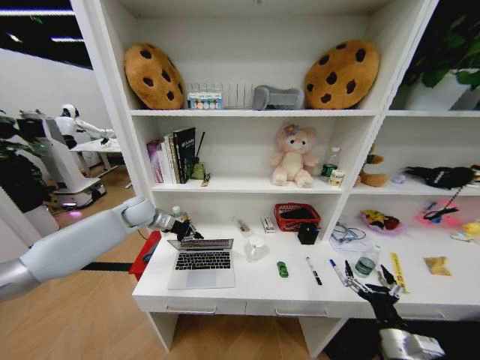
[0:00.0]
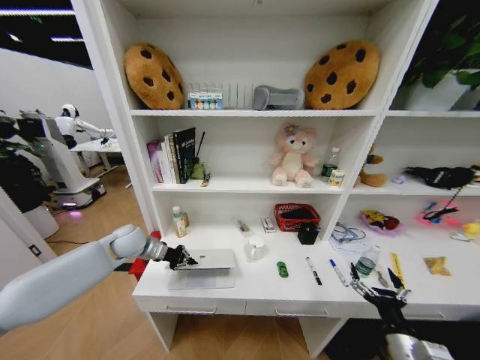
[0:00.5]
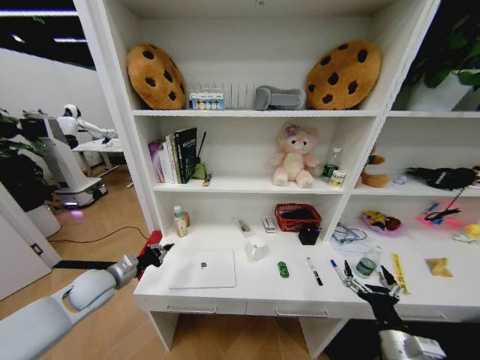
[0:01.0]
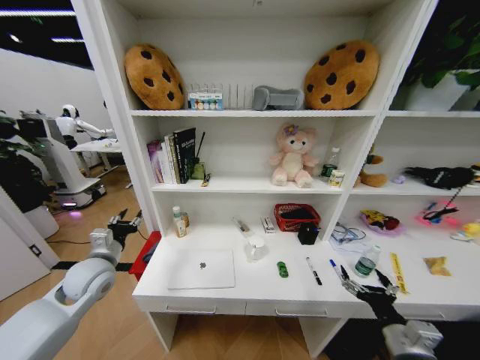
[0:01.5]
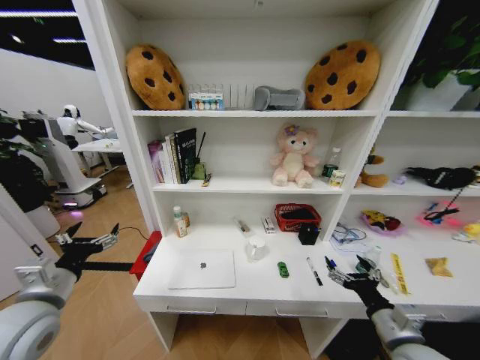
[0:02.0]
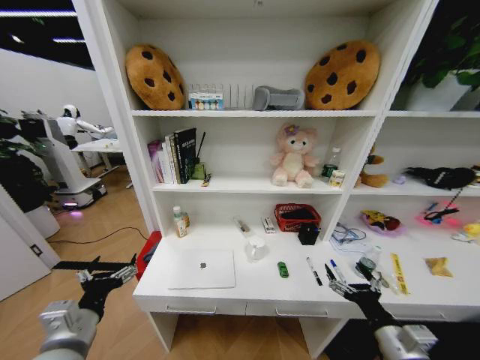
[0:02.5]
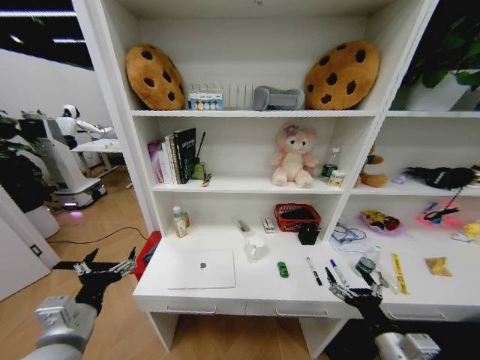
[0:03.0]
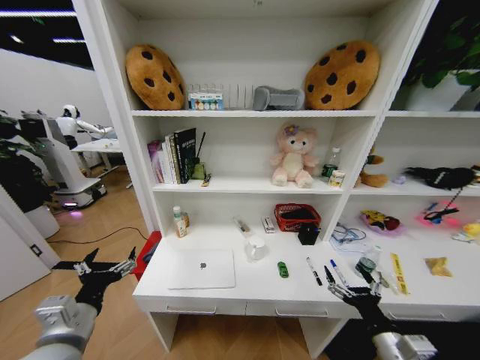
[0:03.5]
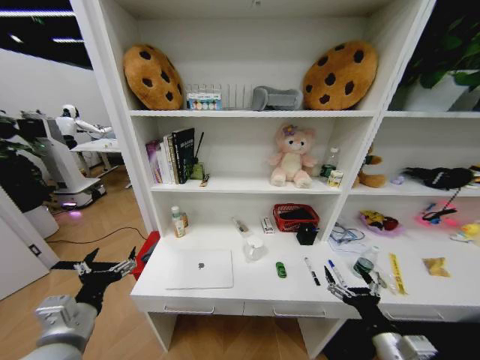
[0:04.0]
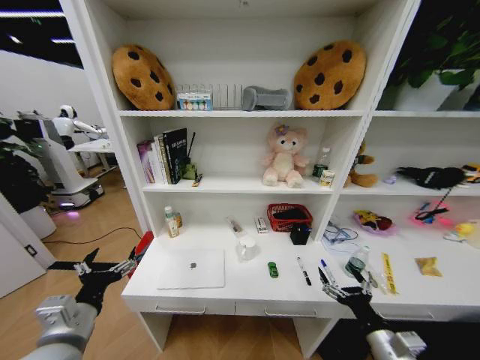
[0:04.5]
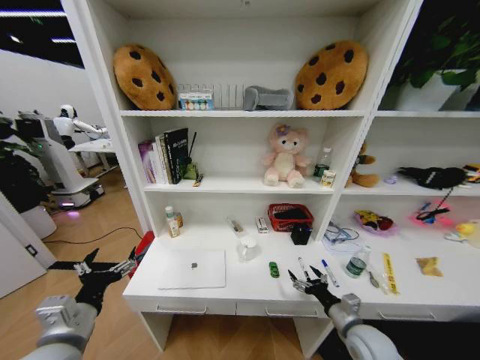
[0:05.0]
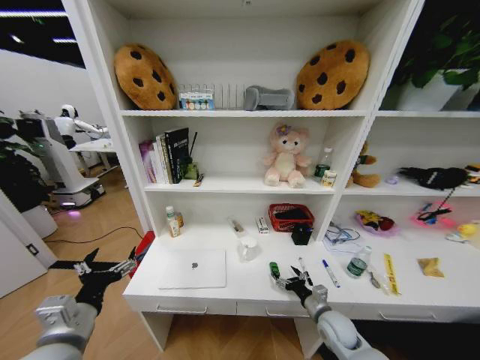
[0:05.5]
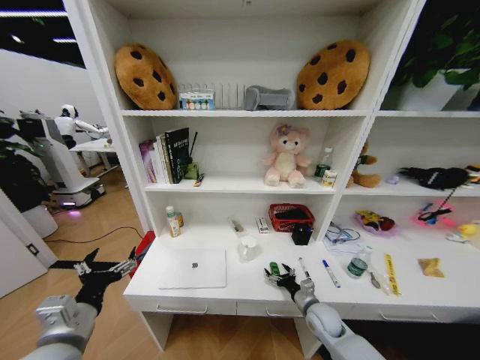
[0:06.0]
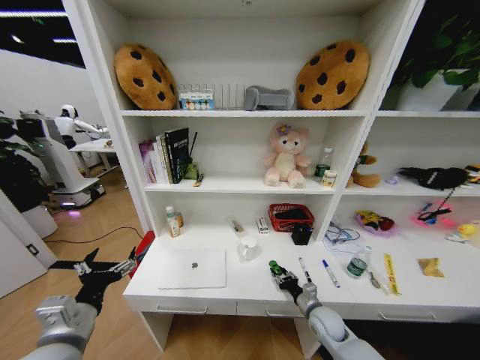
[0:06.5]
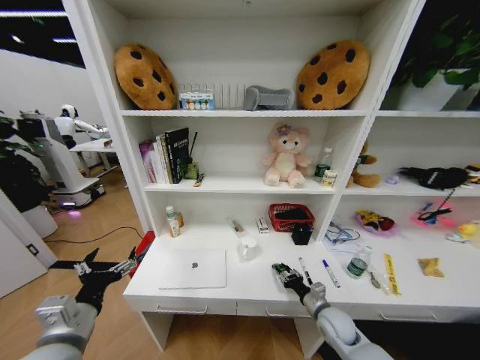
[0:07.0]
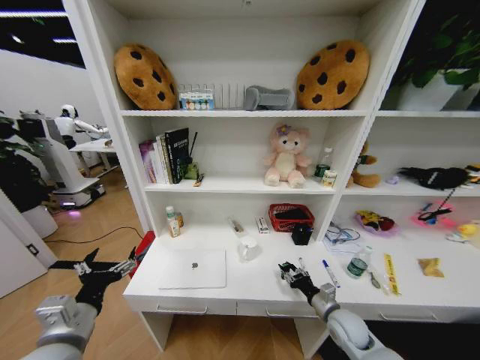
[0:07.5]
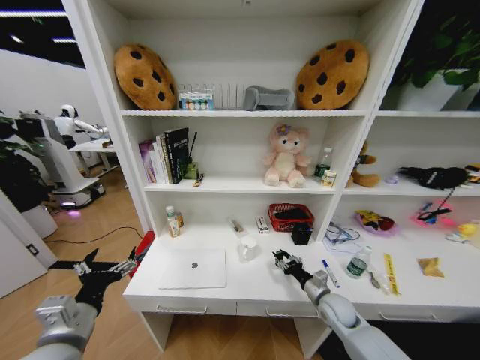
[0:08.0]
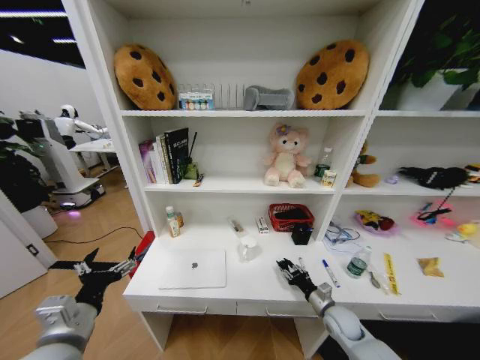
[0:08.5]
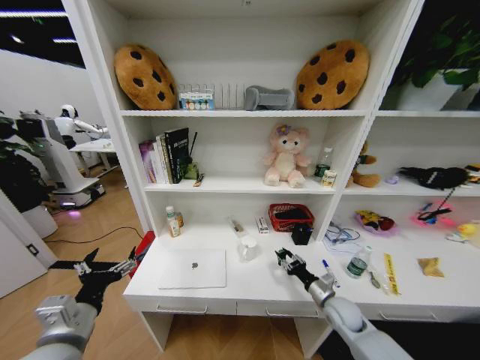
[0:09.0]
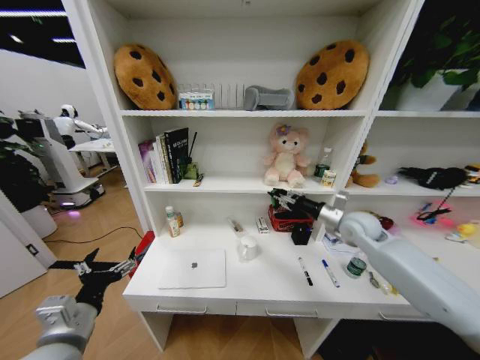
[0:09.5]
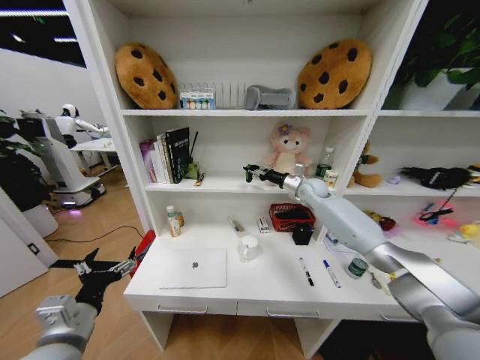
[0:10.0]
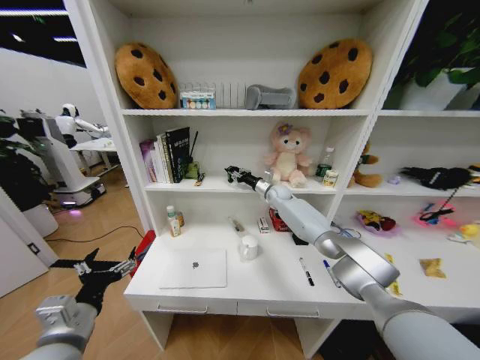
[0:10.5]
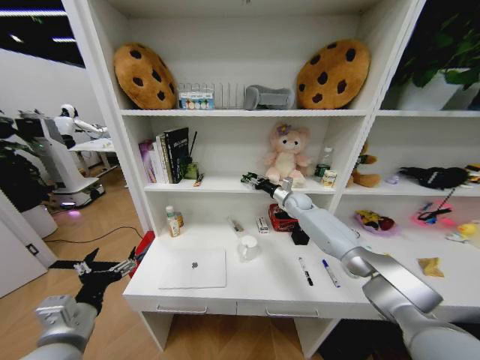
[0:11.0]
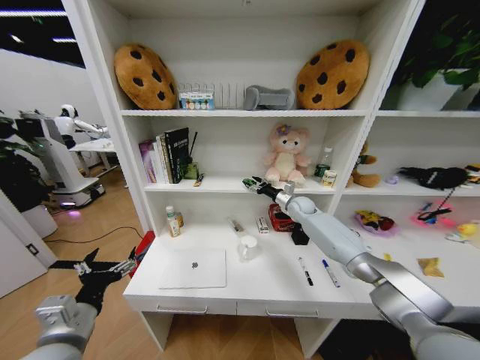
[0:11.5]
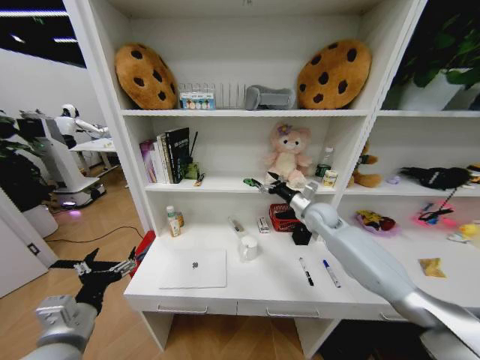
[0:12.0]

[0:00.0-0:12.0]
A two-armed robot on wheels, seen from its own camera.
Task of the whole recording: Organize the objects on the table.
0:00.0 to 0:02.0: The left gripper shifts some 30 cm backward, and opens; the right gripper goes some 5 cm upward.
0:02.0 to 0:04.0: The left gripper travels to the right and backward by about 10 cm. Meanwhile the right gripper shifts by roughly 5 cm.
0:04.0 to 0:06.0: The right gripper is displaced forward and downward by about 20 cm.
0:06.0 to 0:08.0: The right gripper changes place by approximately 5 cm, and closes.
0:08.0 to 0:10.0: The right gripper moves forward and upward, approximately 40 cm.
0:10.0 to 0:12.0: The right gripper goes some 10 cm backward, and opens its fingers.

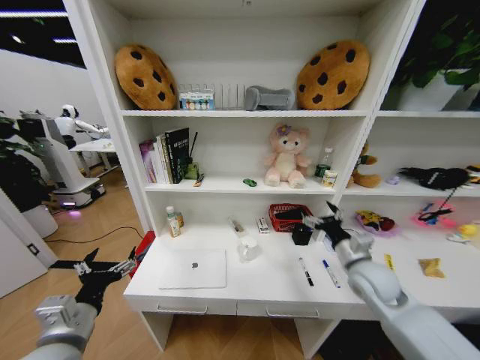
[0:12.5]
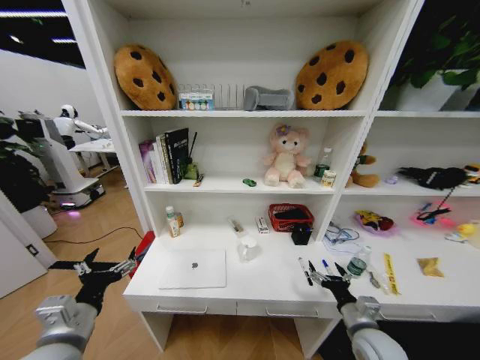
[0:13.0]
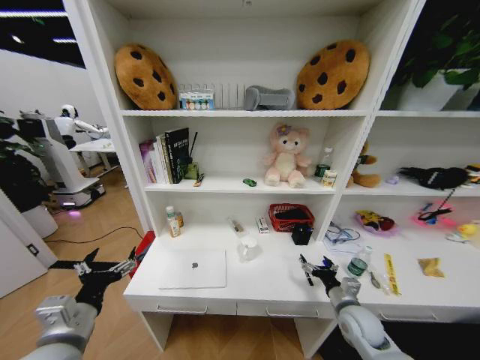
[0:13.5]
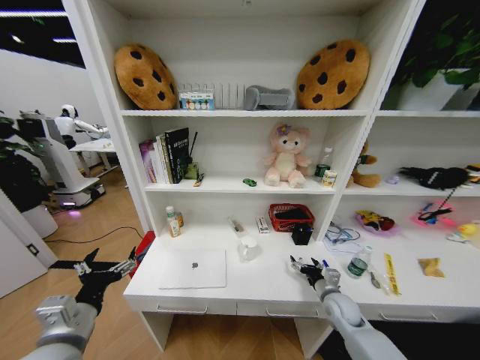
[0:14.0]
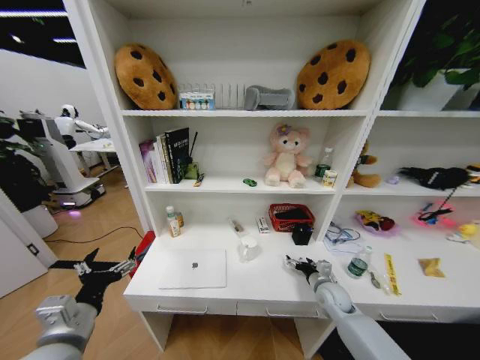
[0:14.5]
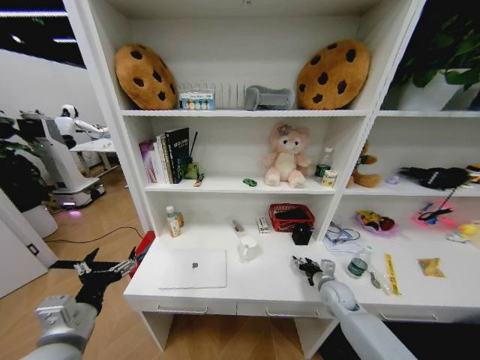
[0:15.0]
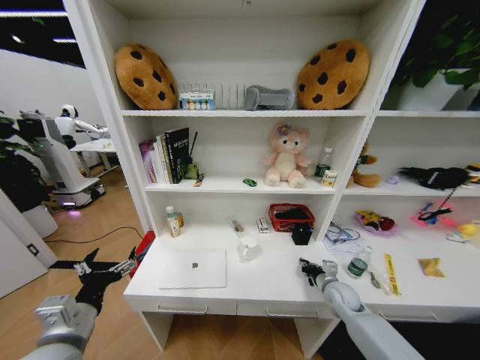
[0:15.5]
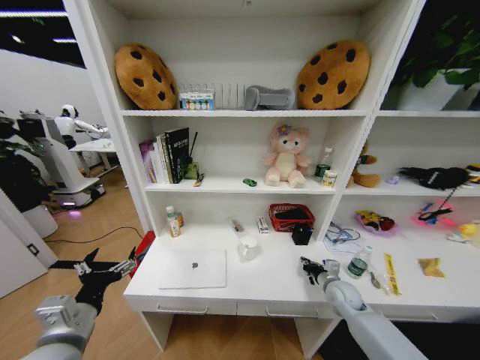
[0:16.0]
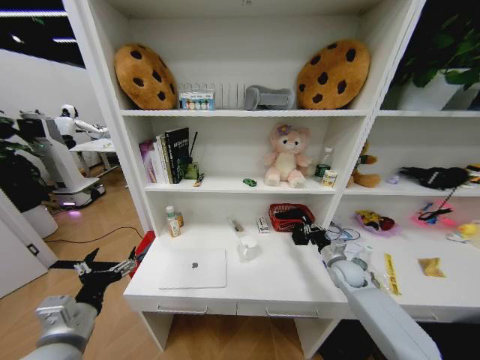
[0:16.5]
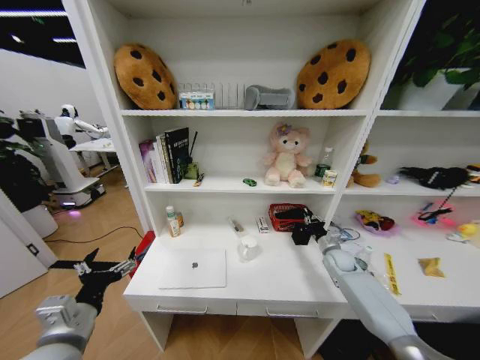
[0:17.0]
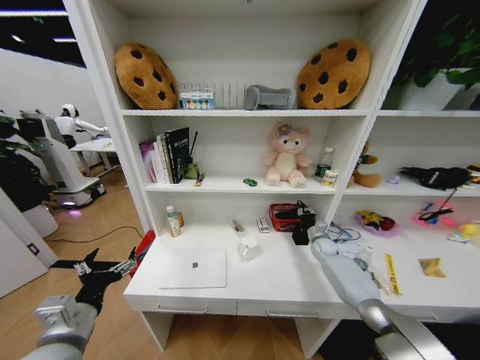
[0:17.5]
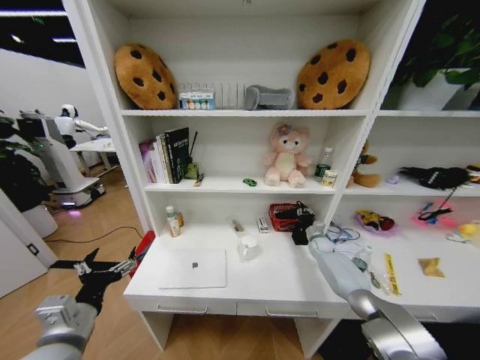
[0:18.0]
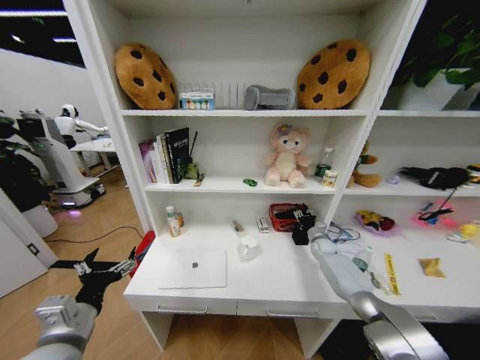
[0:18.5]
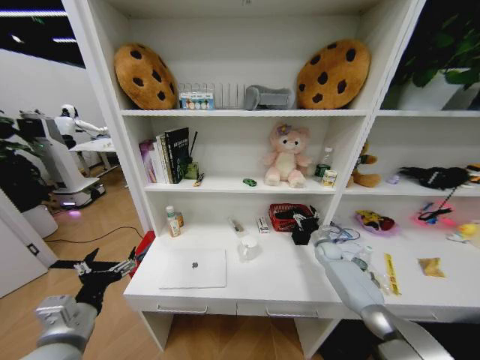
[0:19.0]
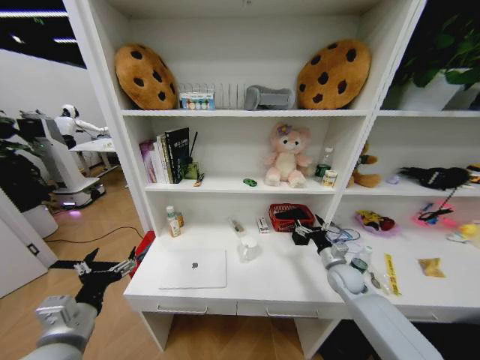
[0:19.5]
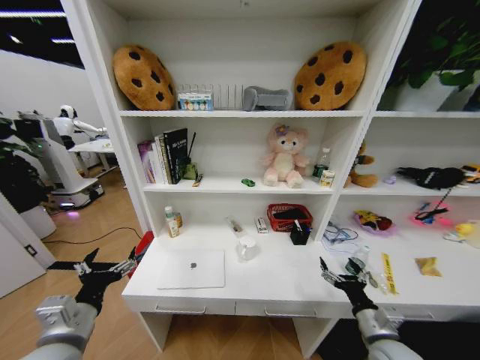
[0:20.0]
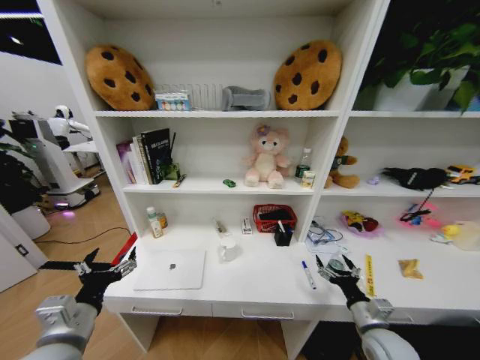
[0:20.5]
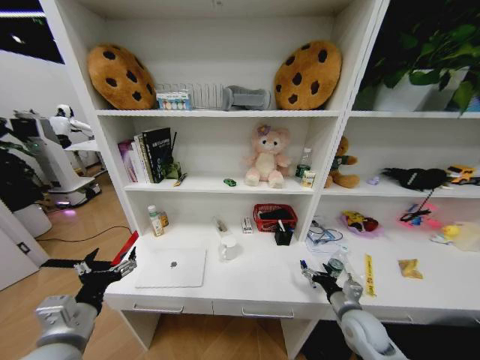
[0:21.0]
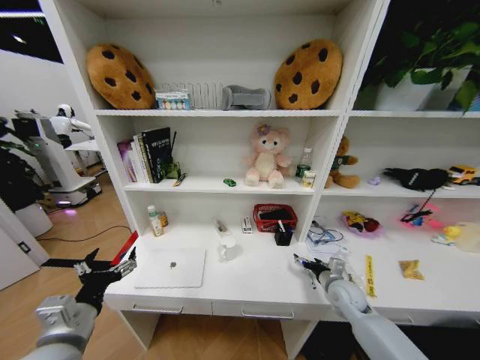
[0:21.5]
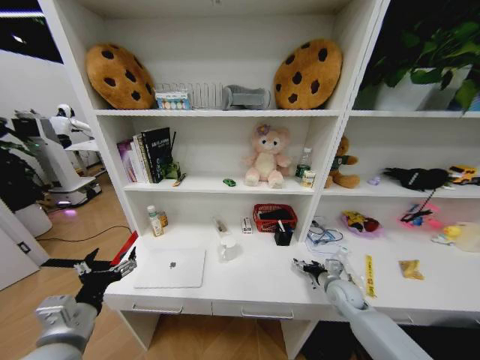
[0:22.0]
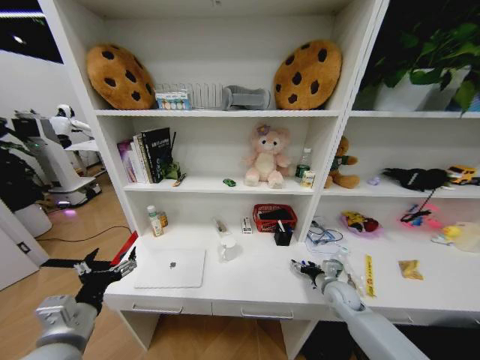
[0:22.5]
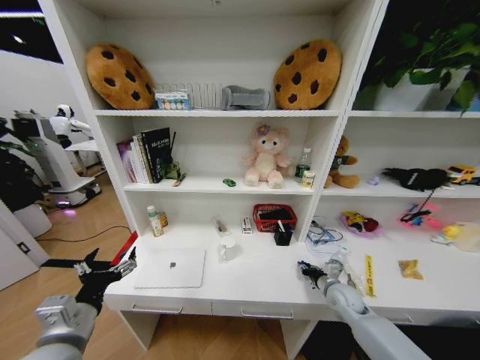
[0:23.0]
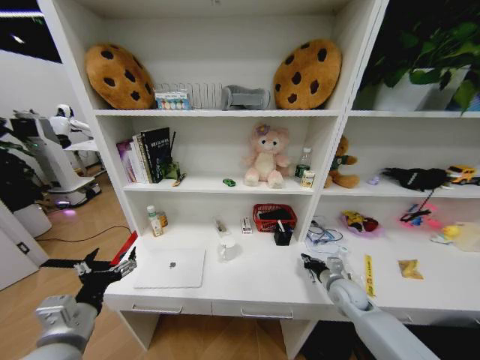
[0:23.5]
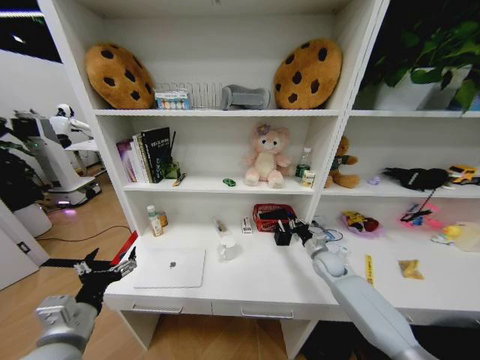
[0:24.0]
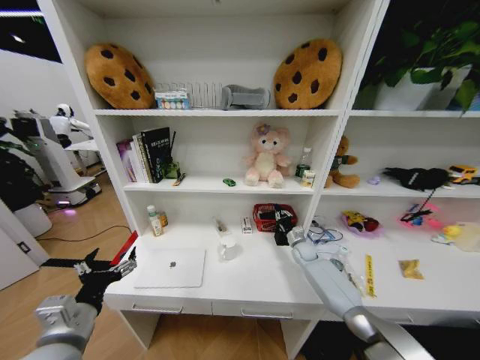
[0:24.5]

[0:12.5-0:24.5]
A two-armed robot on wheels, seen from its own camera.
Task of the whole recording: Organize the objects on the table.
0:12.5 to 0:14.5: The right gripper is displaced downward by roughly 15 cm.
0:14.5 to 0:16.5: The right gripper heads to the right and forward, covering roughly 10 cm, and closes up.
0:16.5 to 0:18.5: The right gripper moves forward, roughly 15 cm.
0:18.5 to 0:20.5: The right gripper moves backward, some 35 cm, and opens.
0:20.5 to 0:22.5: The right gripper heads forward, covering about 15 cm.
0:22.5 to 0:24.5: The right gripper heads forward, covering roughly 15 cm, and closes its fingers.

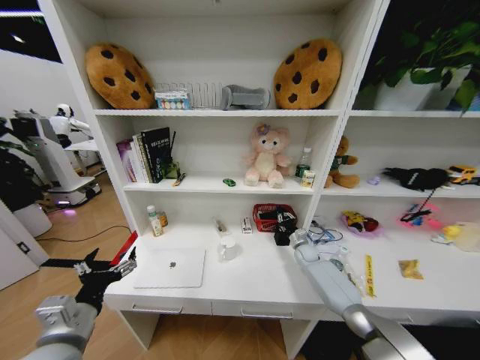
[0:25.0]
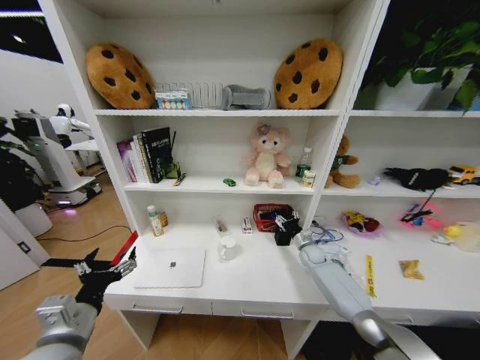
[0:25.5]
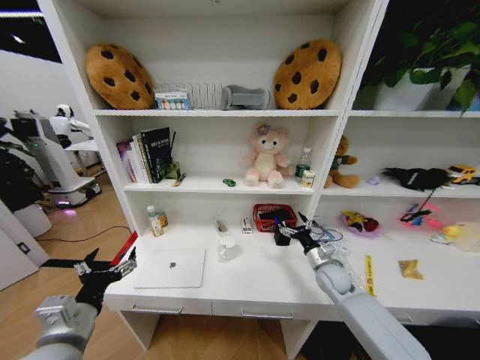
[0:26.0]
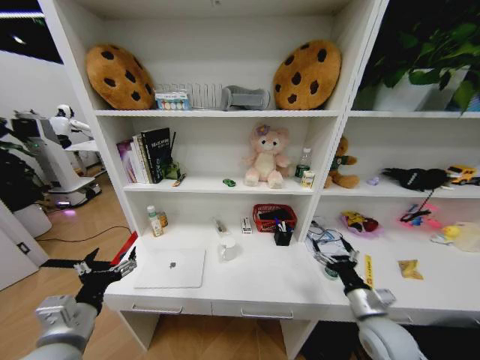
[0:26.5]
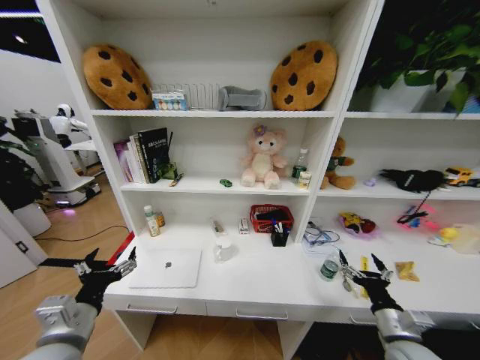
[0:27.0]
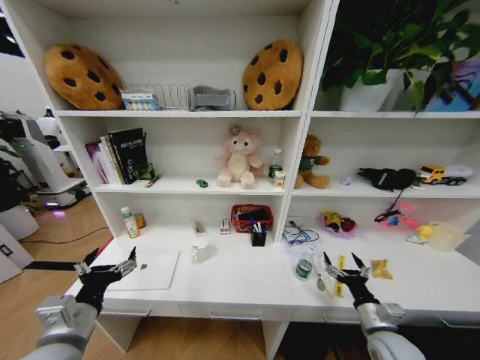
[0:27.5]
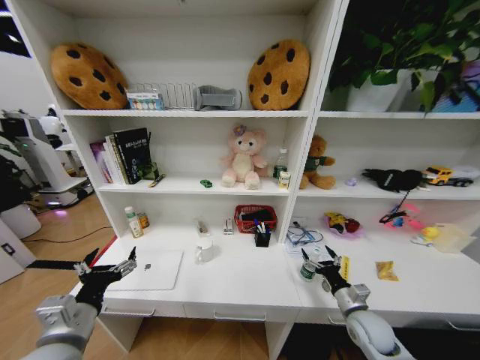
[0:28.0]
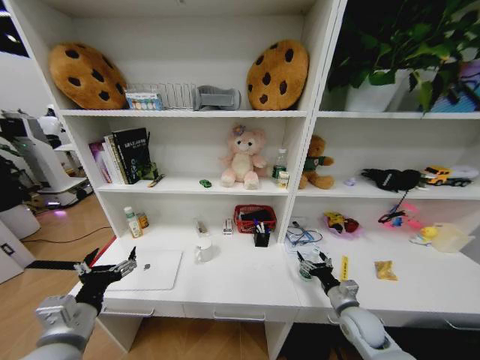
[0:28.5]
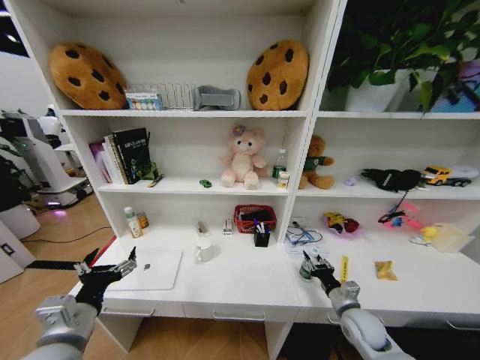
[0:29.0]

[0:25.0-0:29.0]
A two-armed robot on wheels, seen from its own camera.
Task of the whole recording: Organize the objects on the table.
0:25.0 to 0:27.0: The right gripper heads backward, covering some 35 cm, and opens its fingers.
0:27.0 to 0:29.0: The right gripper heads forward and downward, covering approximately 10 cm, and closes its fingers.
